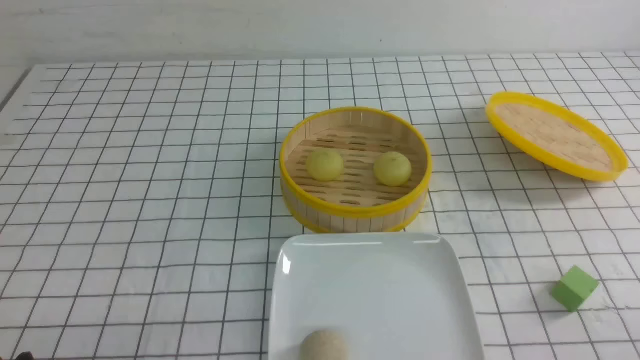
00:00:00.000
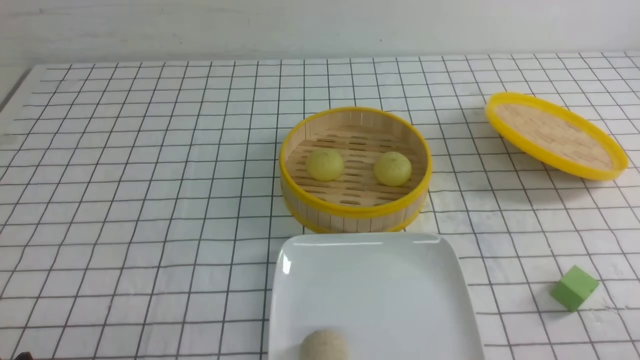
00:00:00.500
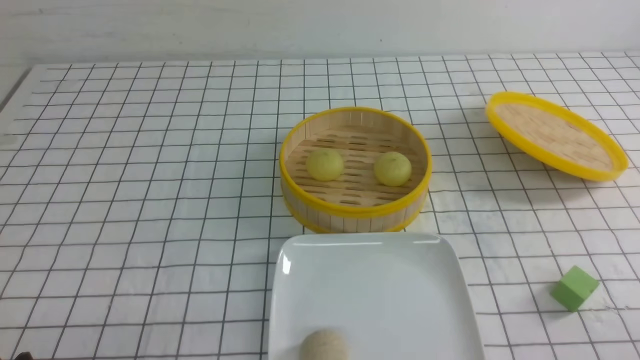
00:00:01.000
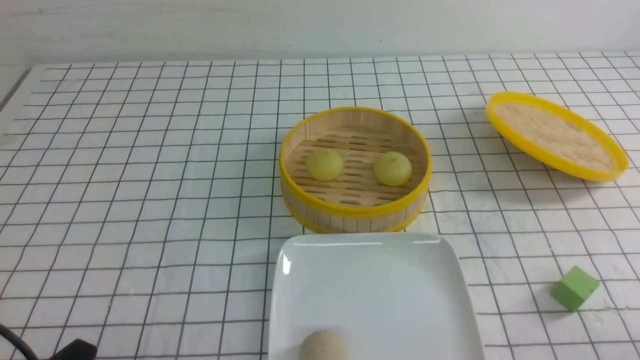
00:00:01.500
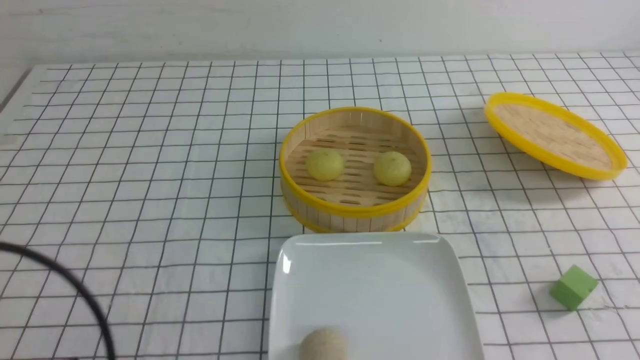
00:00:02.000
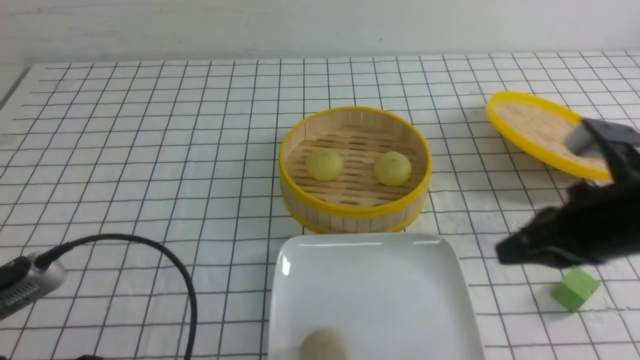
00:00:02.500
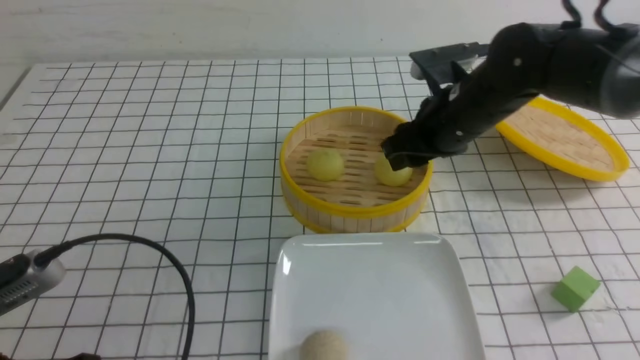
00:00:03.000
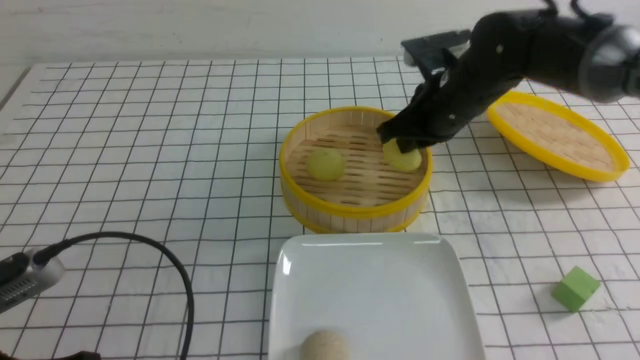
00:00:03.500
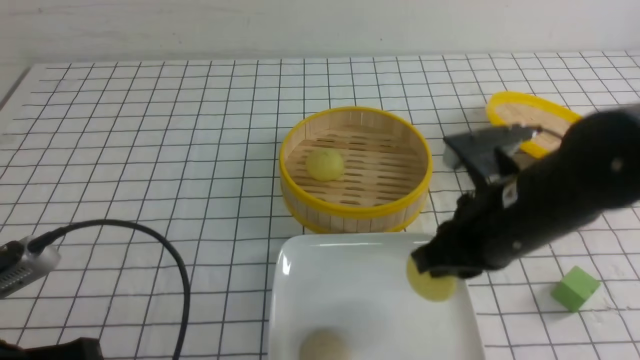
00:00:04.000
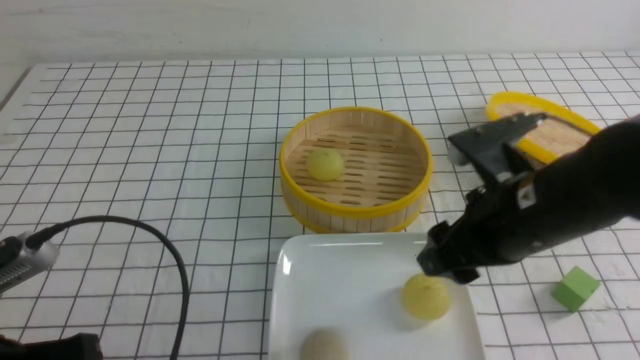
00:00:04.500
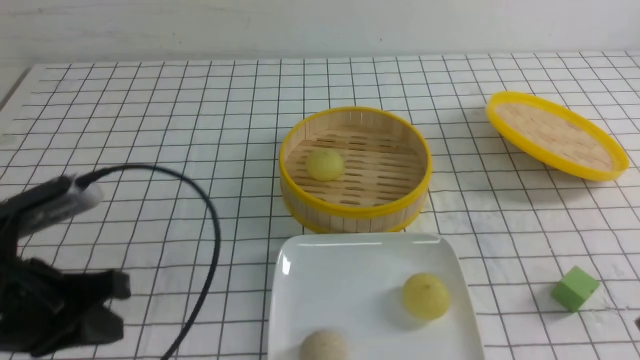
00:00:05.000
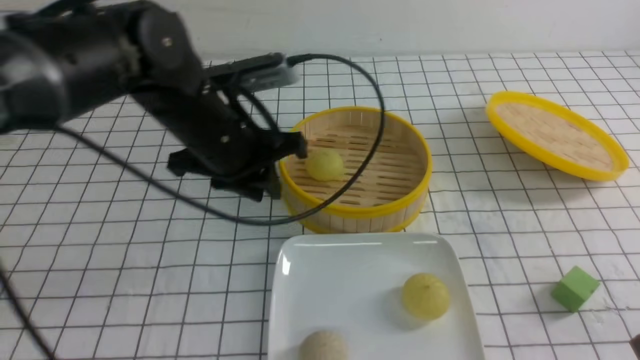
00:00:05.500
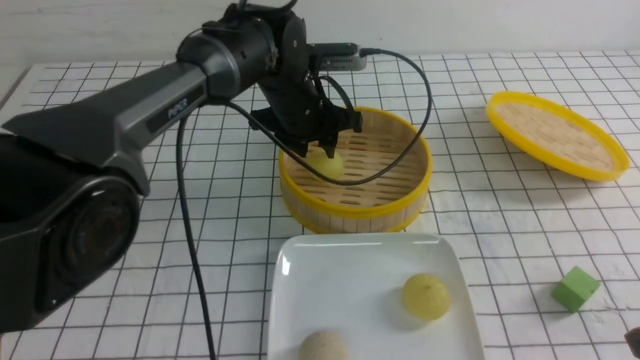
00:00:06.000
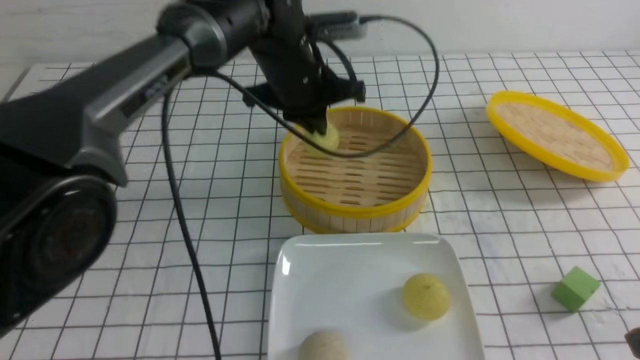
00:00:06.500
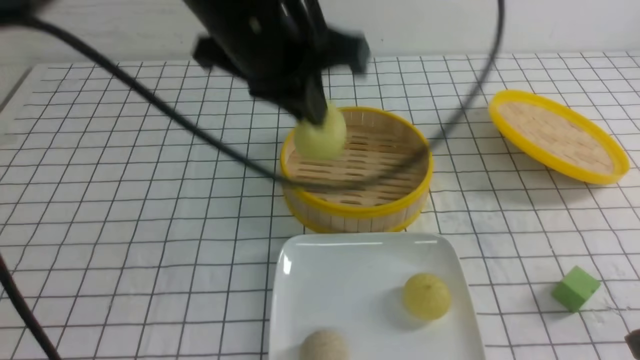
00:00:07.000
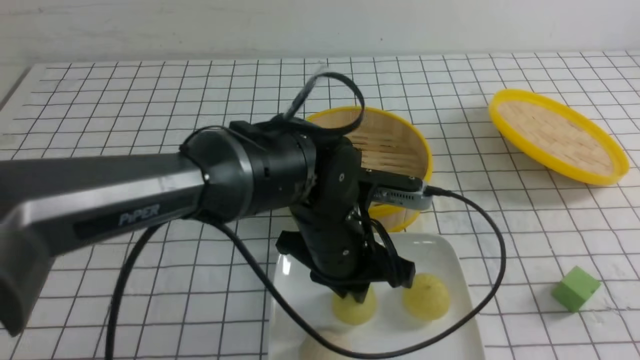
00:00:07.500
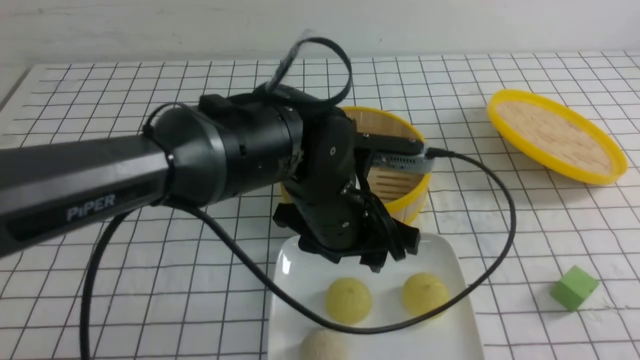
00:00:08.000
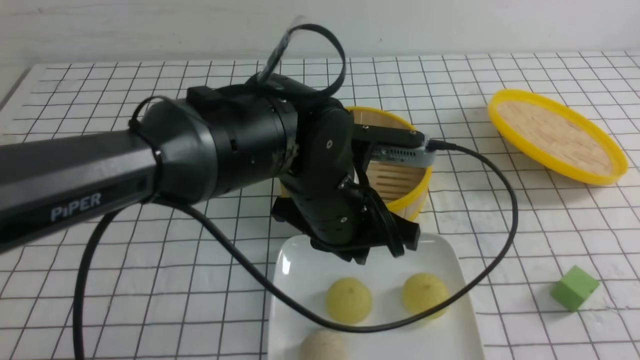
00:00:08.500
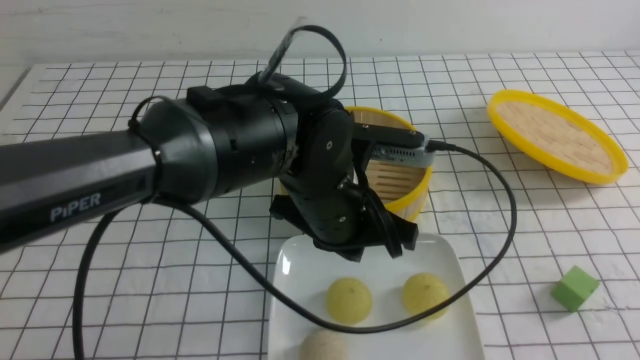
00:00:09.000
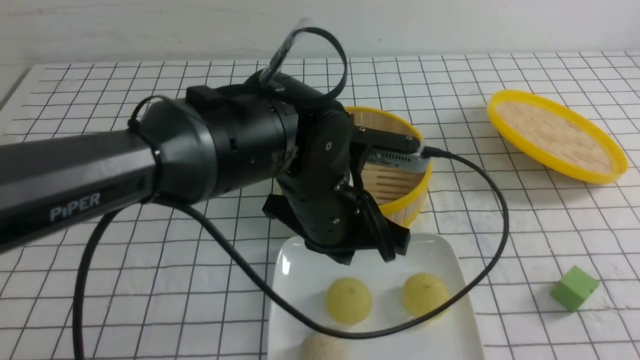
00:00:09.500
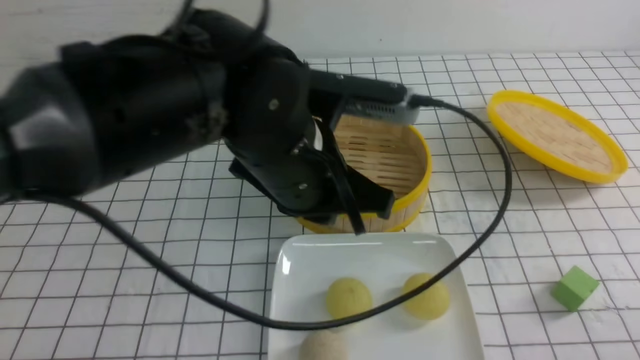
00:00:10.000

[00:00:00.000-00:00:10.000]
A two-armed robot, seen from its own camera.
Step, 00:00:00.000 to 00:00:03.000: use the right arm to grab the steamed stuffed bun that is closest to it.
Step, 00:00:03.500 to 00:00:04.000: use the right arm to put the steamed stuffed bun into the plate.
Step, 00:00:04.500 to 00:00:06.000: use the left arm to grab the steamed stuffed bun that is closest to it.
Step, 00:00:06.500 to 00:00:07.500: use the left arm to put the steamed stuffed bun into the plate.
00:00:00.000 to 00:00:02.000: The left gripper heads upward, covering roughly 5 cm, and closes.
00:00:02.000 to 00:00:04.000: The right gripper moves forward and to the left, some 25 cm, and opens and closes again. Meanwhile the left gripper is displaced forward by roughly 5 cm.
00:00:04.000 to 00:00:06.000: The right gripper travels backward and to the right by some 20 cm, and closes its fingers. The left gripper is displaced forward and to the right by about 40 cm, and opens its fingers.
00:00:06.000 to 00:00:08.000: The right gripper is displaced backward, to the right and upward by roughly 15 cm; the left gripper moves backward, approximately 15 cm, and closes, then reopens.
00:00:08.000 to 00:00:10.000: The right gripper travels downward and forward by roughly 15 cm, while the left gripper travels upward by some 10 cm, and closes its fingers.

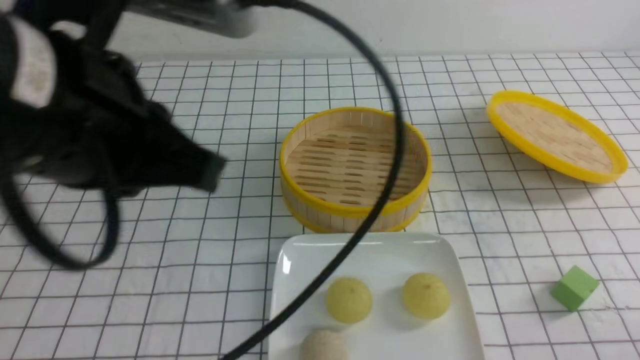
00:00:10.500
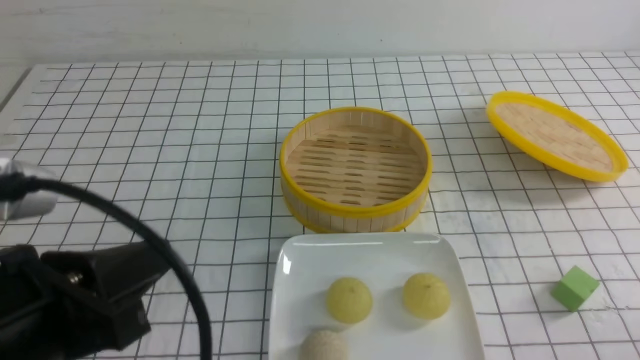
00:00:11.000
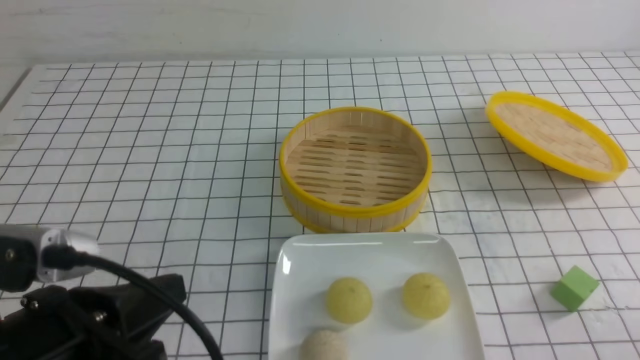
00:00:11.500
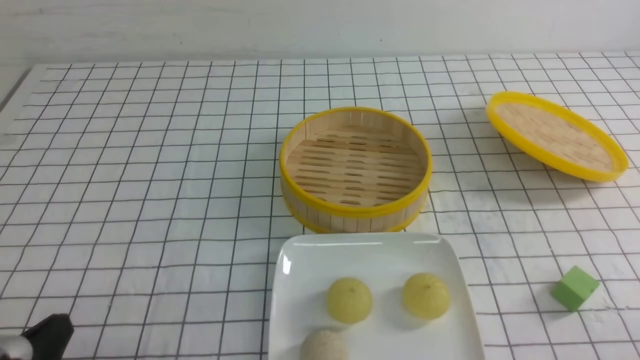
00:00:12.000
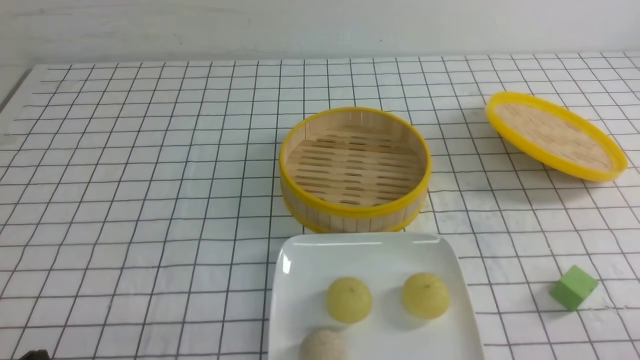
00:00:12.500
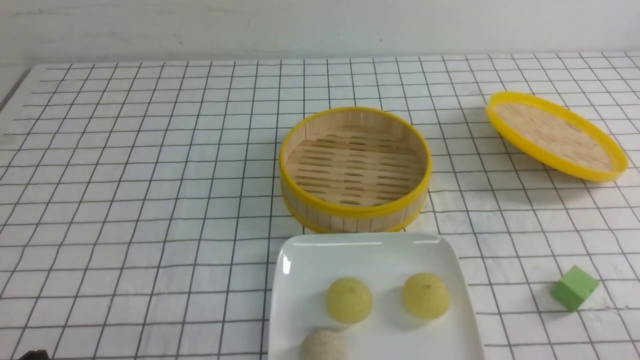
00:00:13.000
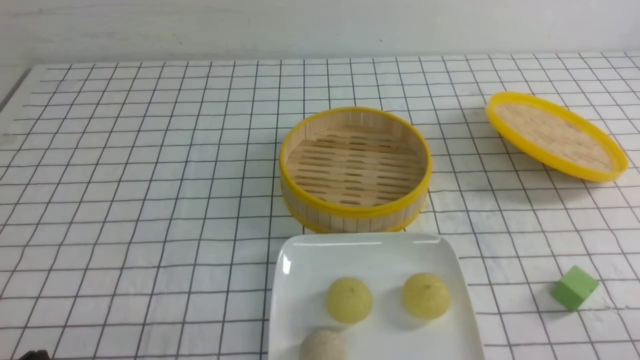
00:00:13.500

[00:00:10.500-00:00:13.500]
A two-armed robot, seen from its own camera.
00:00:10.500 to 00:00:12.000: The left gripper travels downward, to the left and backward by roughly 25 cm.

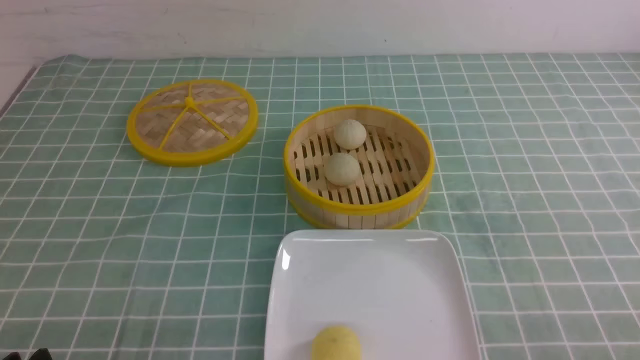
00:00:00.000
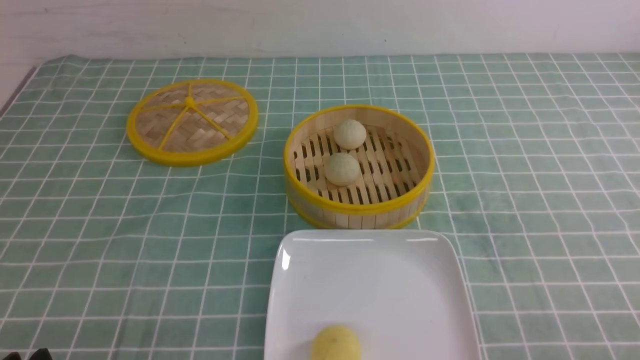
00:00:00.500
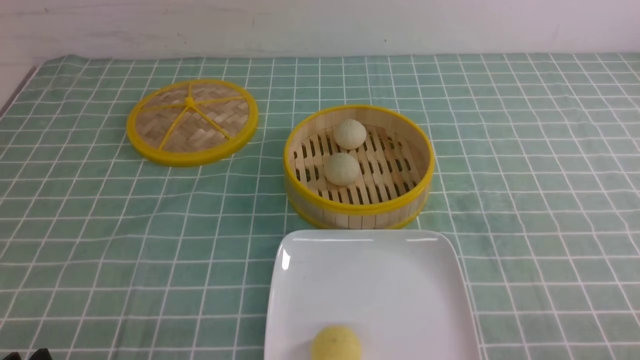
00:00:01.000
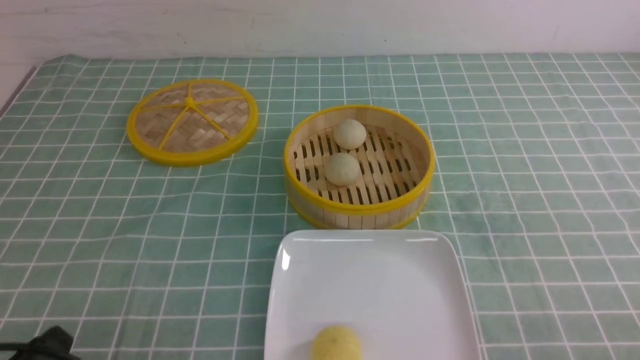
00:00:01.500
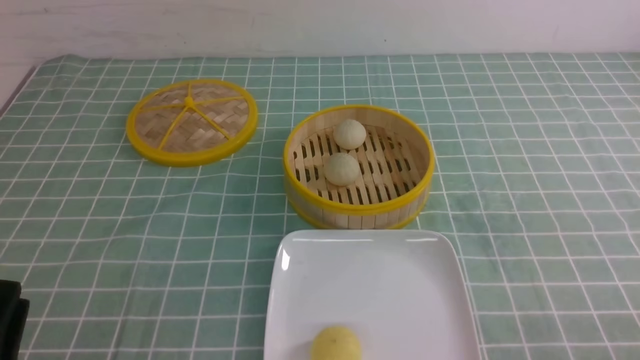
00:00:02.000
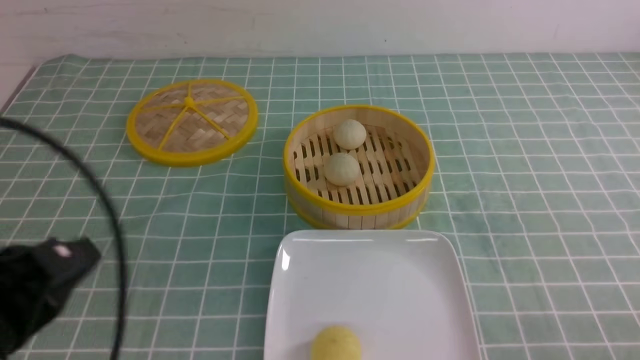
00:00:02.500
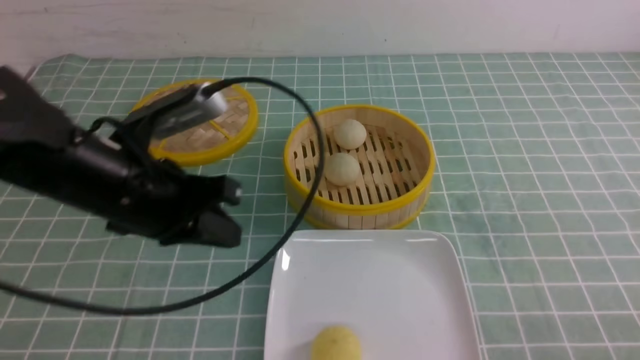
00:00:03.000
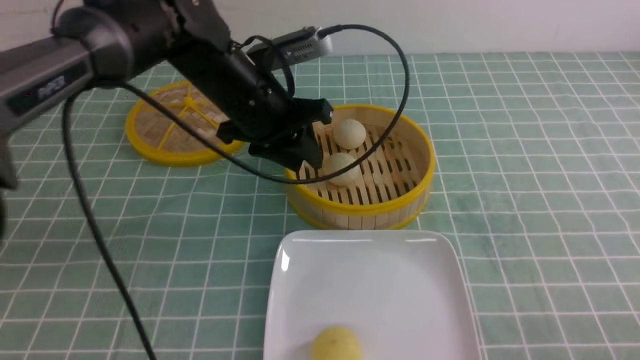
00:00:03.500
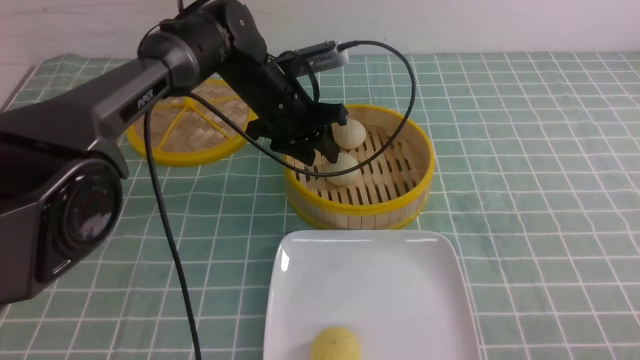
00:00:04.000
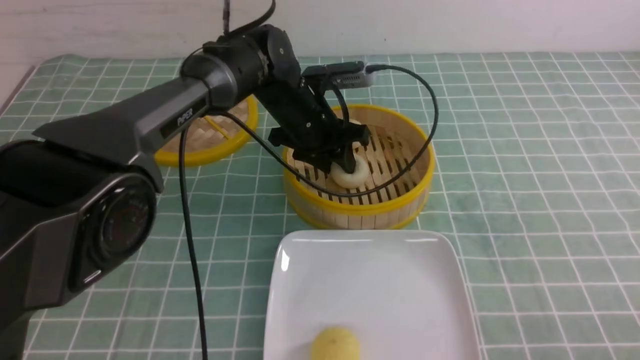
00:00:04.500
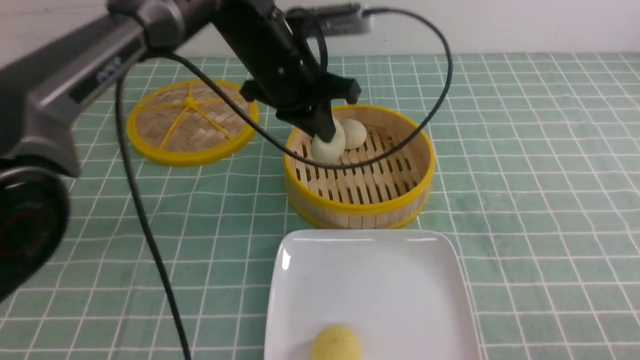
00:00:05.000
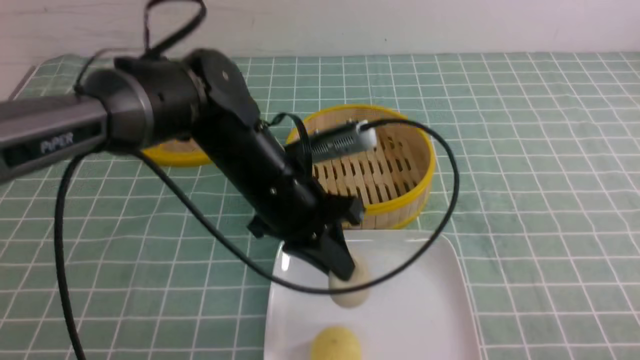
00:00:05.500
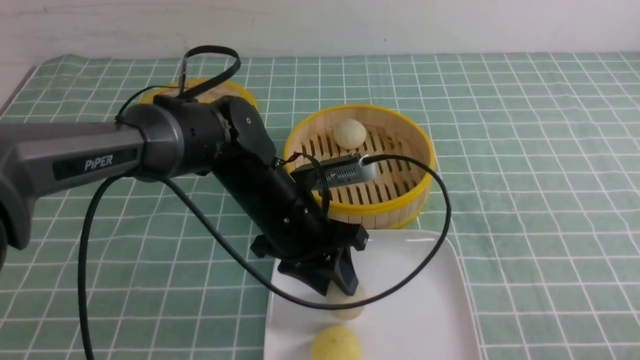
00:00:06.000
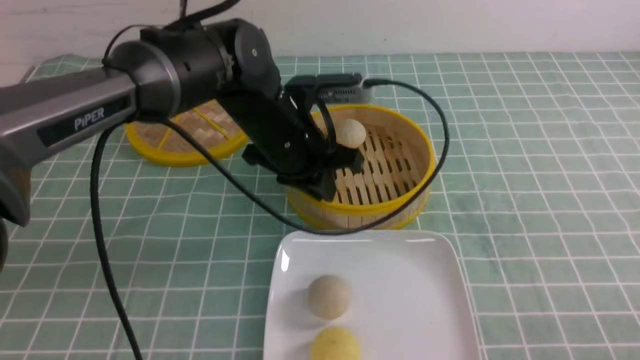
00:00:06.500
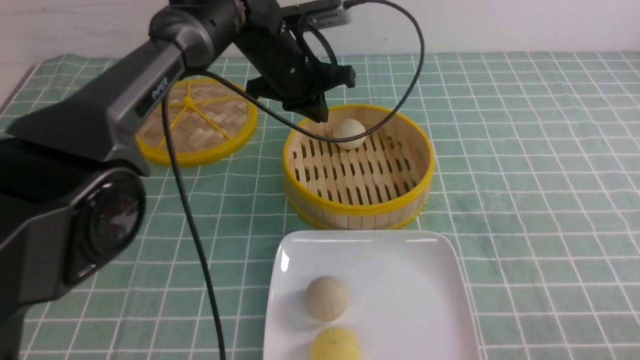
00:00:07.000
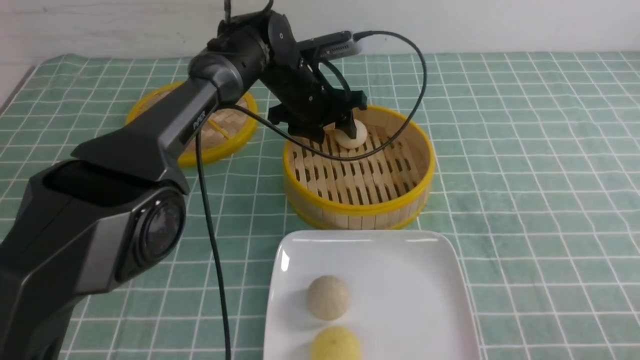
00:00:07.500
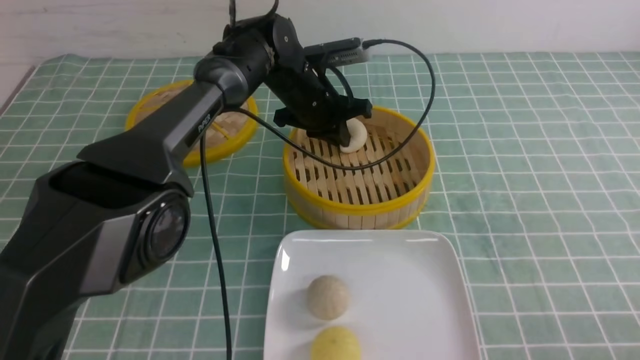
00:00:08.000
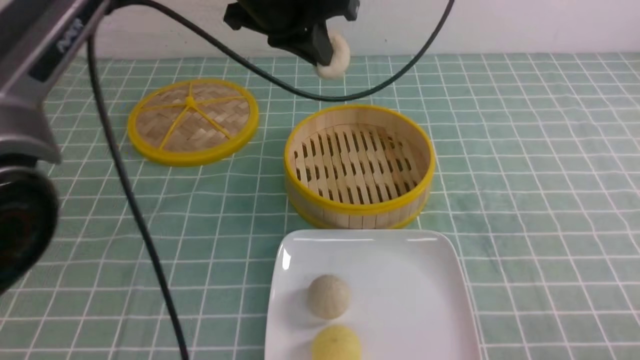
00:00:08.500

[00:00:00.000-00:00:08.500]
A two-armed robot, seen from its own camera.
Step, 00:00:00.000 to 00:00:04.500: use the left arm to grab the steamed stuffed bun that is closest to it.
Step, 00:00:05.000 to 00:00:06.000: use the left arm to put the steamed stuffed bun into the plate.
Step, 00:00:06.500 to 00:00:08.000: use the left arm to grab the steamed stuffed bun that is closest to it.
00:00:00.000 to 00:00:02.000: The left gripper moves upward, roughly 5 cm.
00:00:02.000 to 00:00:04.000: The left gripper shifts about 40 cm forward and to the right, and opens.
00:00:04.000 to 00:00:06.500: The left gripper travels backward by roughly 10 cm, and closes its fingers.
00:00:06.500 to 00:00:08.500: The left gripper moves upward, approximately 10 cm, and opens, then closes once more.
